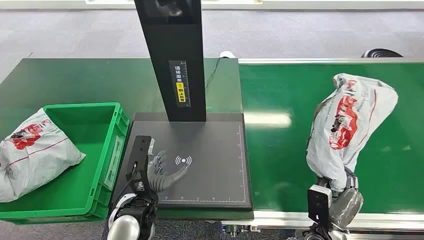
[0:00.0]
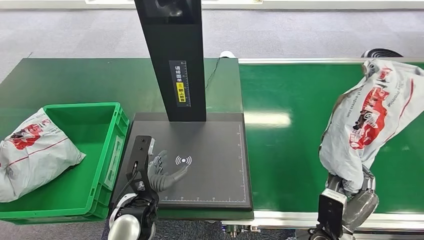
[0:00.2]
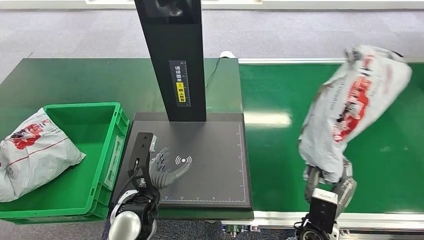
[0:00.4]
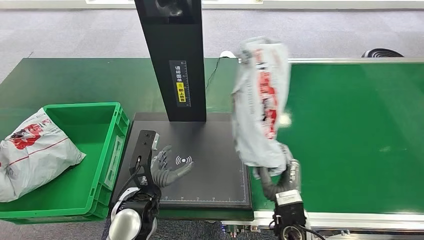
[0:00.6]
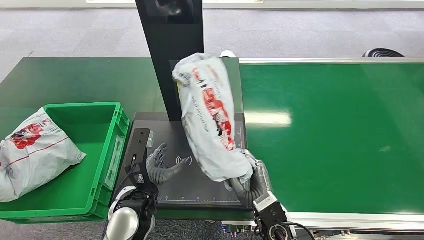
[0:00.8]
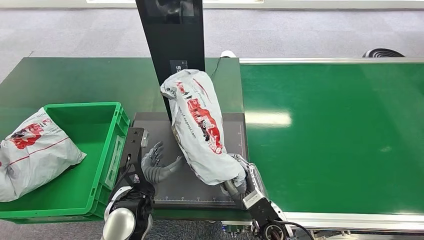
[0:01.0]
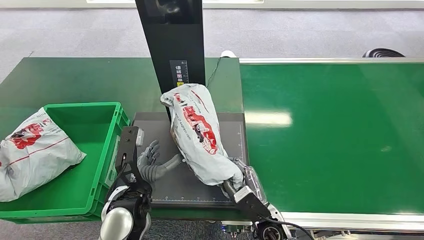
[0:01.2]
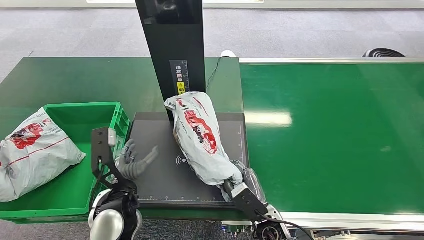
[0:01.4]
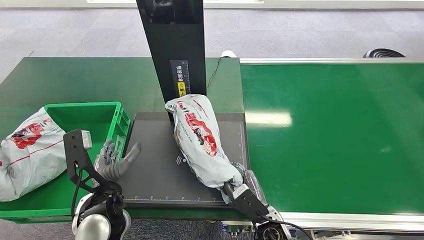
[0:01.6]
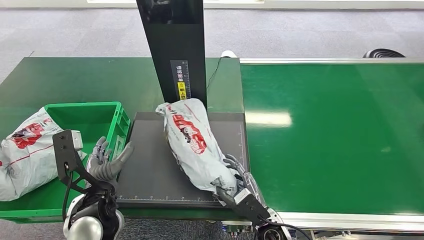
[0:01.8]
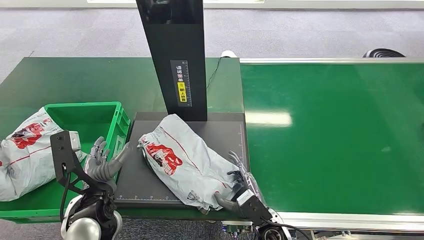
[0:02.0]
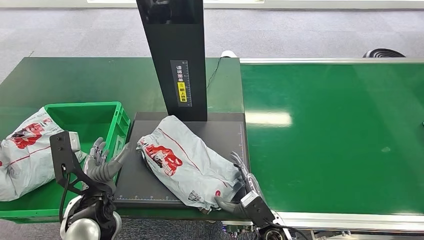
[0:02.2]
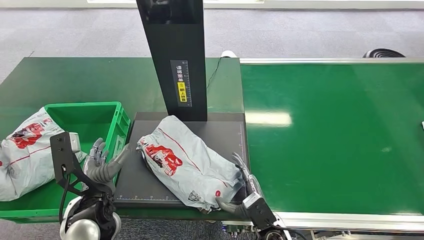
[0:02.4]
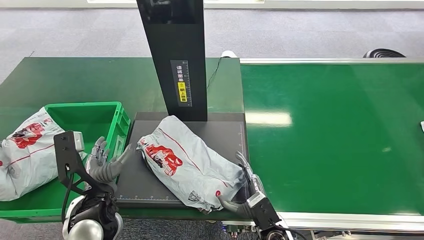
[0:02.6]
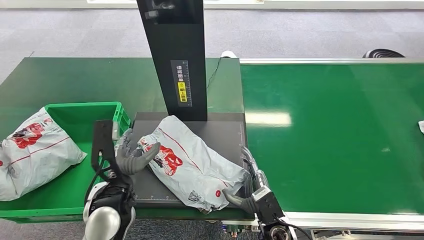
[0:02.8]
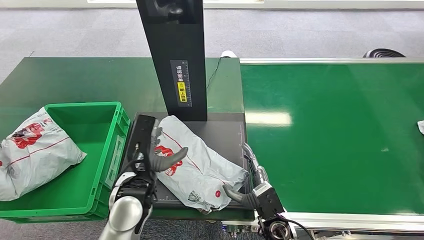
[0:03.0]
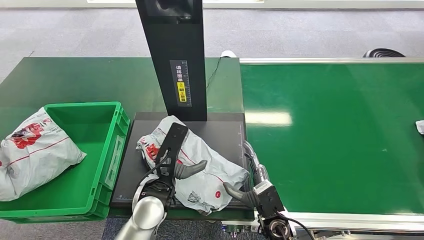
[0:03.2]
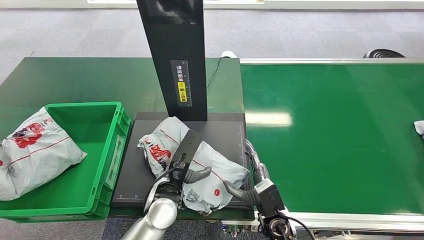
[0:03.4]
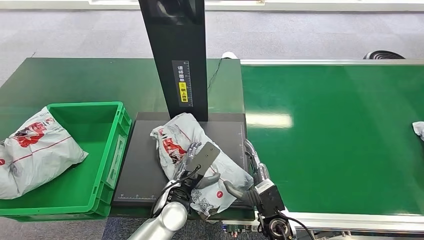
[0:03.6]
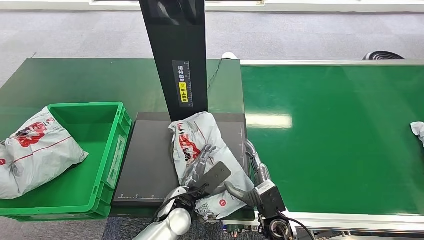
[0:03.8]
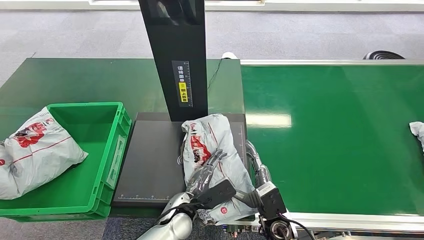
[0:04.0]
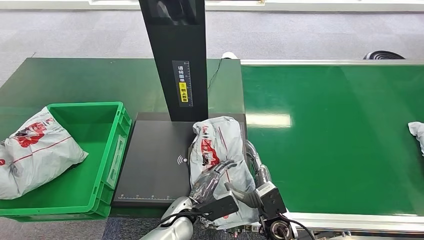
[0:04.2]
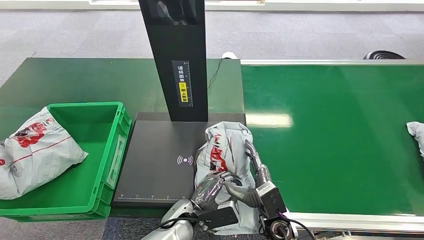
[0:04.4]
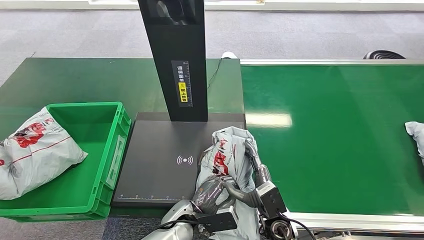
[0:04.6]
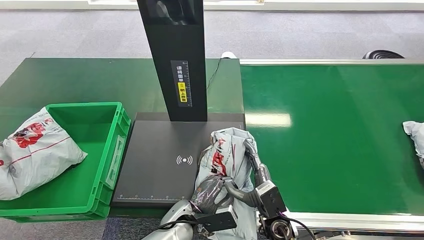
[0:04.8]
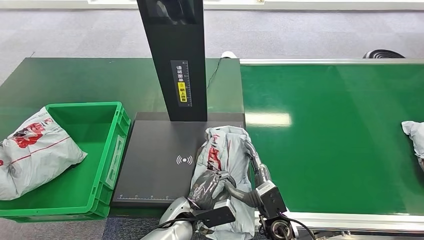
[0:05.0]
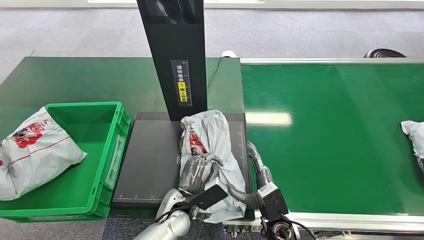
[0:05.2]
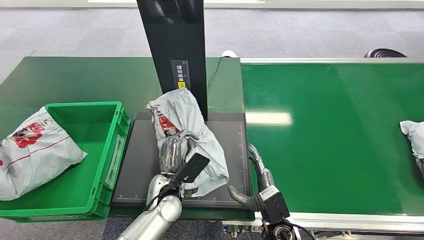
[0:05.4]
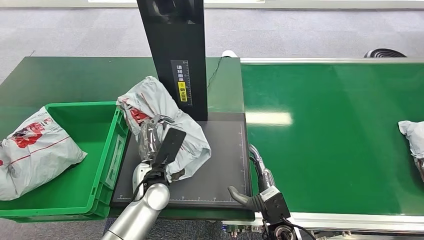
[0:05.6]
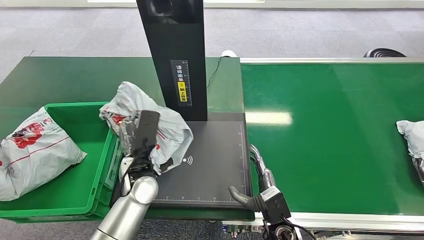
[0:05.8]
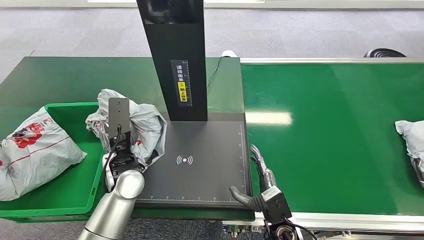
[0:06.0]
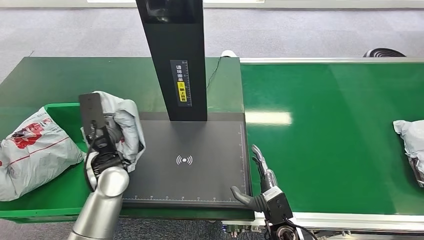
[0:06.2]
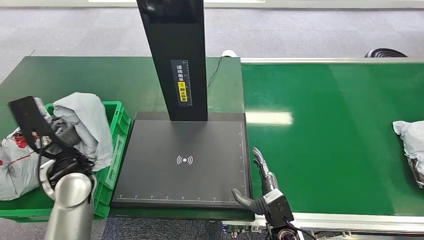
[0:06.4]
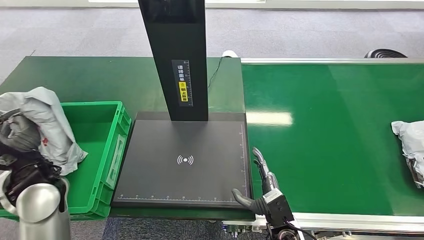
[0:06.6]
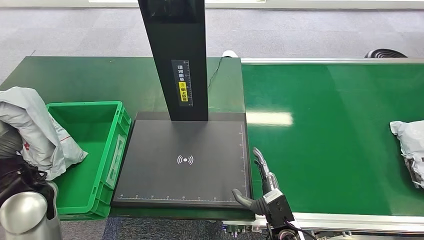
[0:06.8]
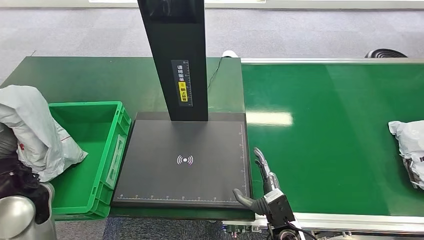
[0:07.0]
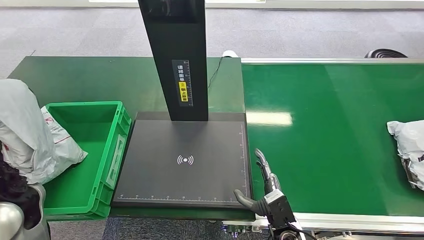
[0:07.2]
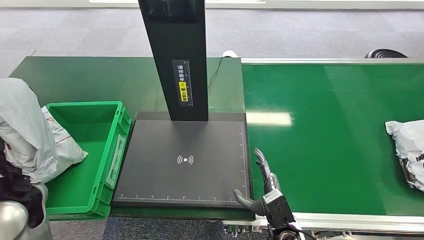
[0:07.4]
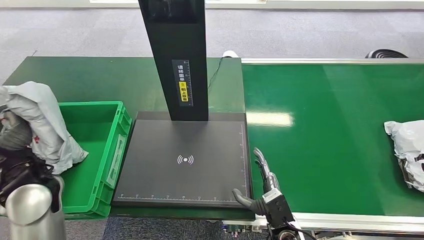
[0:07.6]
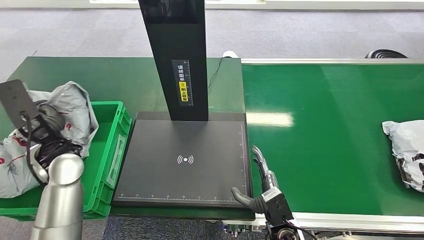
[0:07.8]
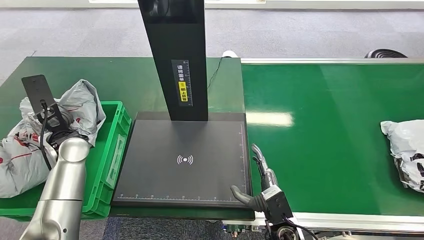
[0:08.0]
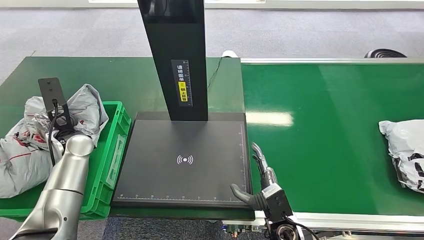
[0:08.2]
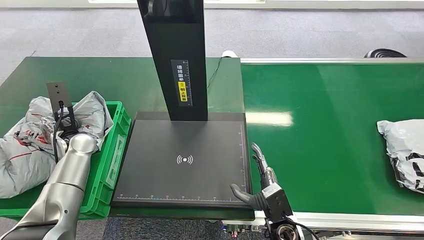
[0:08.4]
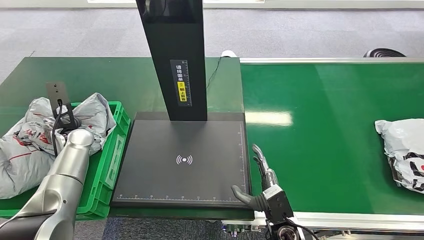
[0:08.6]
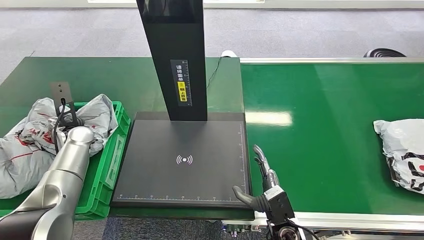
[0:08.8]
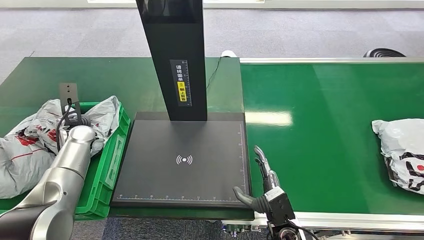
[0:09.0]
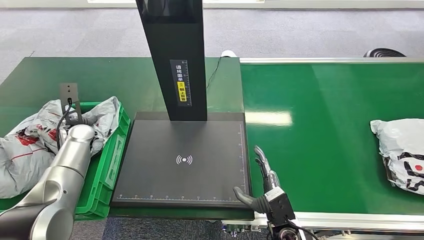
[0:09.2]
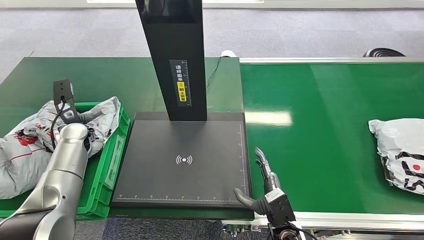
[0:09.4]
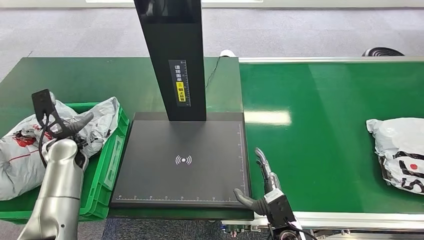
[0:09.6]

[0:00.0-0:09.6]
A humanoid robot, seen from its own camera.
Step, 0:00.0 to 0:00.2: Pick up the package from the conveyor belt.
Step, 0:09.4 to 0:09.6: Place the package into the parcel locker.
0:01.6 to 0:03.2: The left hand is displaced to the right by approximately 10 cm.
0:06.4 to 0:08.0: The left hand is displaced forward and to the left by approximately 10 cm.

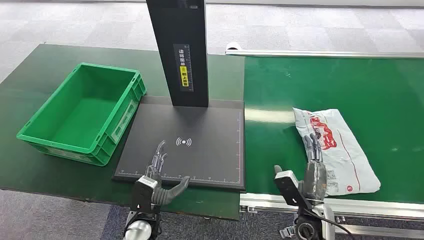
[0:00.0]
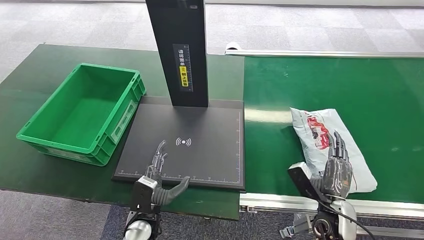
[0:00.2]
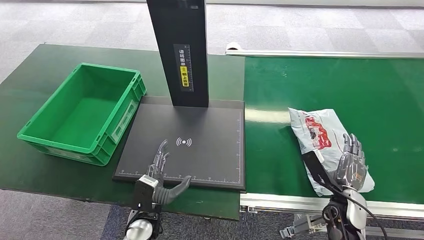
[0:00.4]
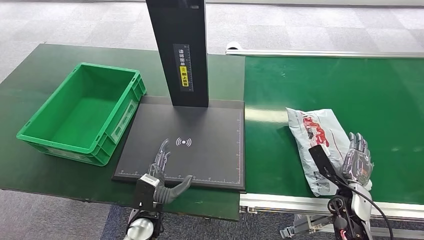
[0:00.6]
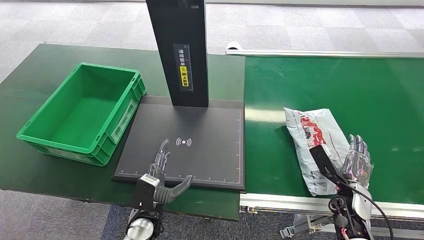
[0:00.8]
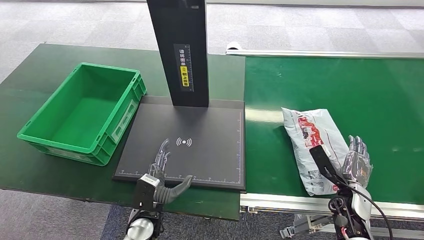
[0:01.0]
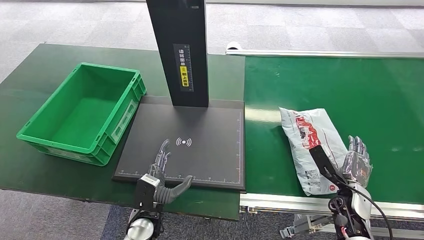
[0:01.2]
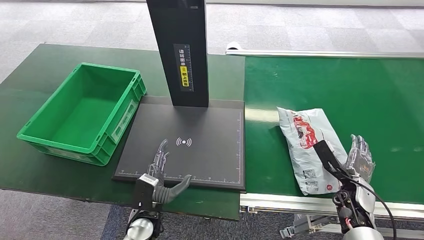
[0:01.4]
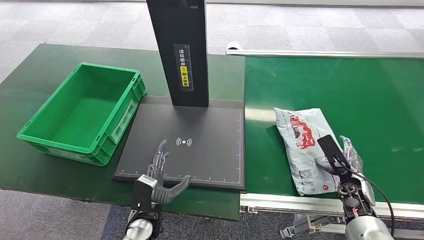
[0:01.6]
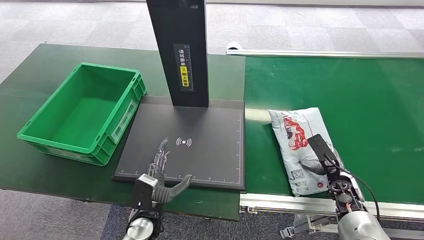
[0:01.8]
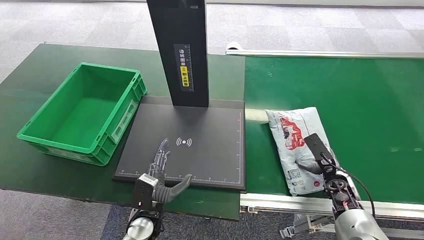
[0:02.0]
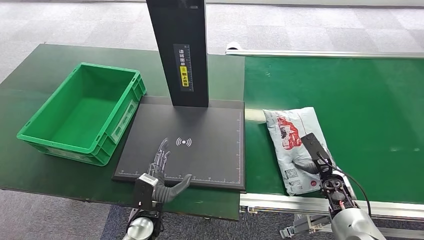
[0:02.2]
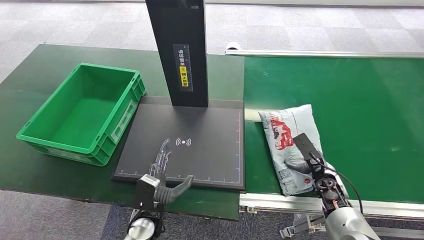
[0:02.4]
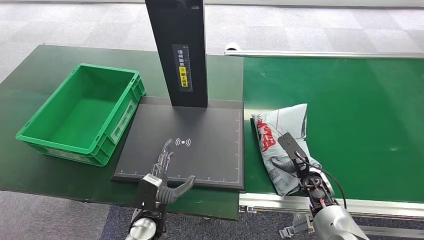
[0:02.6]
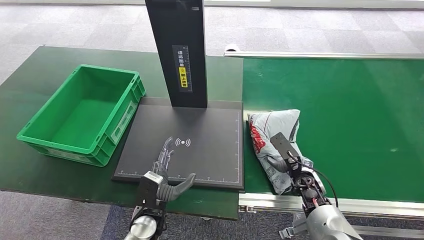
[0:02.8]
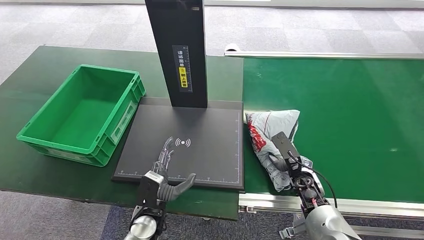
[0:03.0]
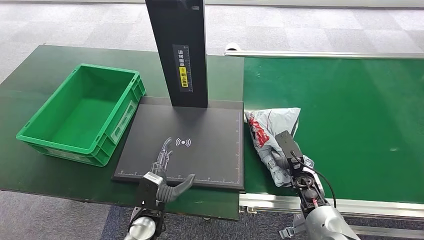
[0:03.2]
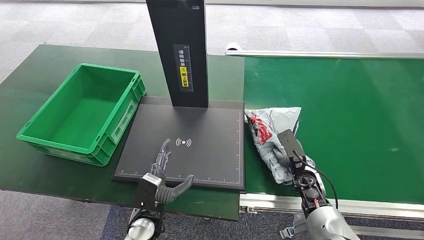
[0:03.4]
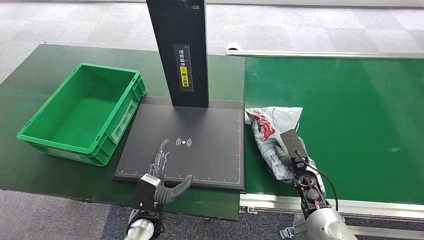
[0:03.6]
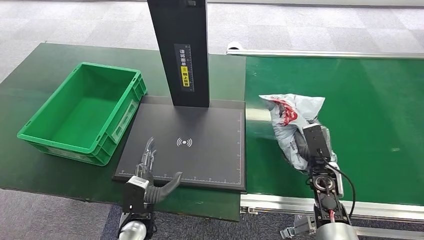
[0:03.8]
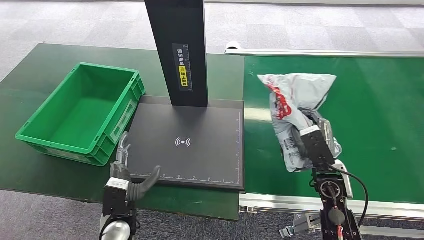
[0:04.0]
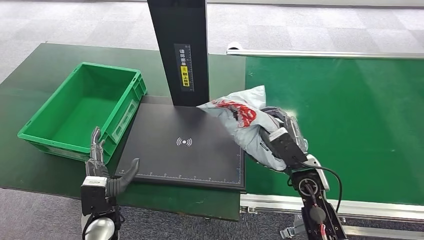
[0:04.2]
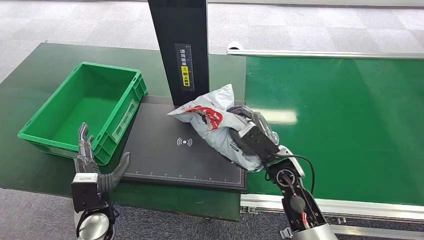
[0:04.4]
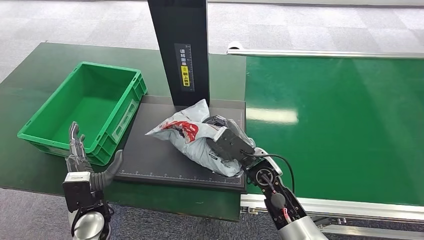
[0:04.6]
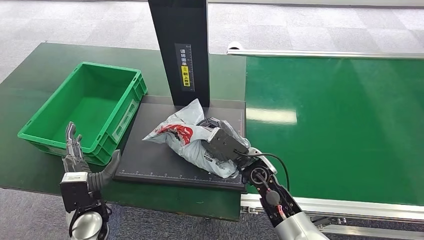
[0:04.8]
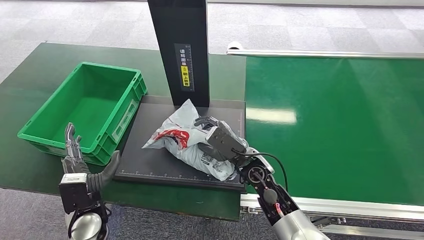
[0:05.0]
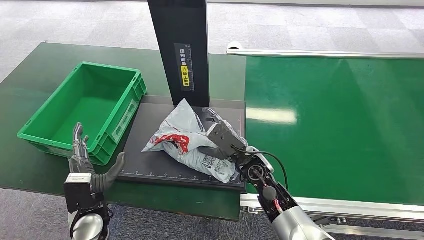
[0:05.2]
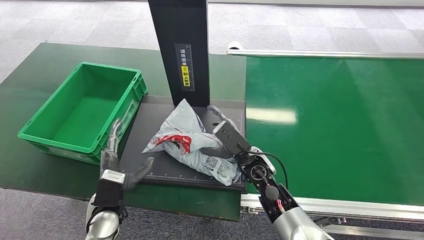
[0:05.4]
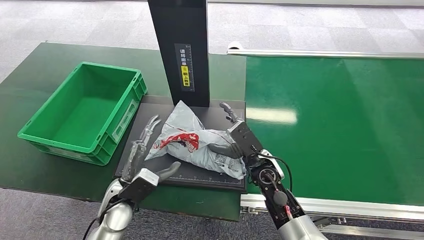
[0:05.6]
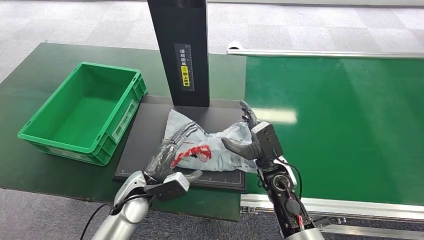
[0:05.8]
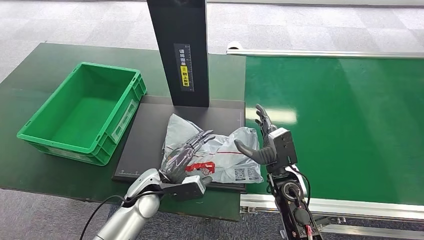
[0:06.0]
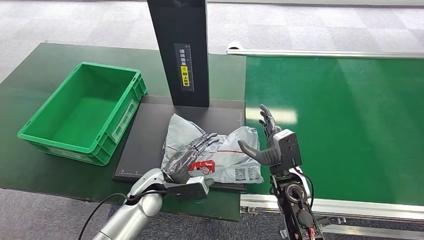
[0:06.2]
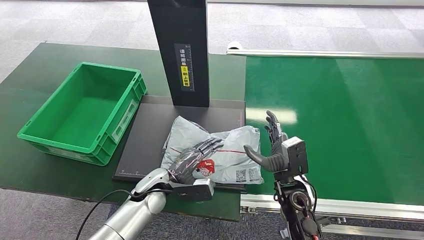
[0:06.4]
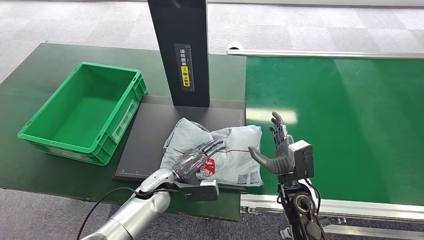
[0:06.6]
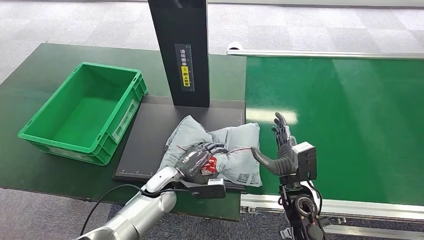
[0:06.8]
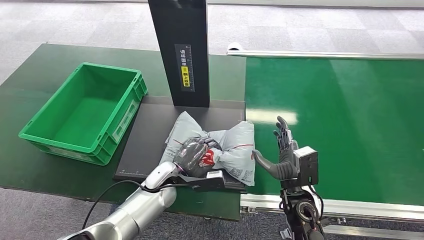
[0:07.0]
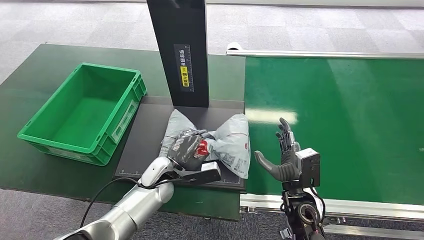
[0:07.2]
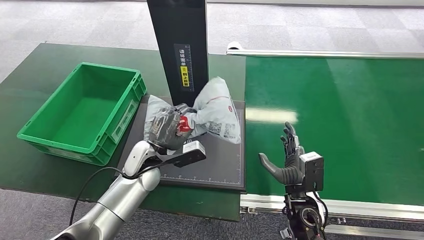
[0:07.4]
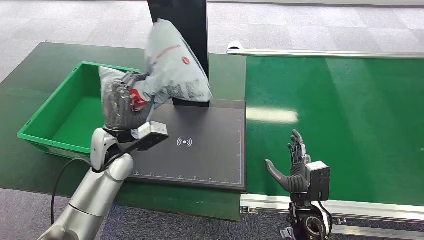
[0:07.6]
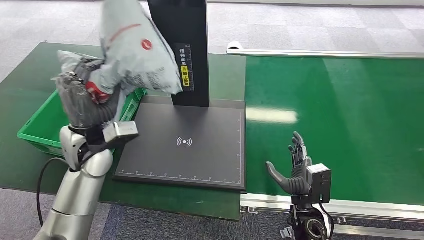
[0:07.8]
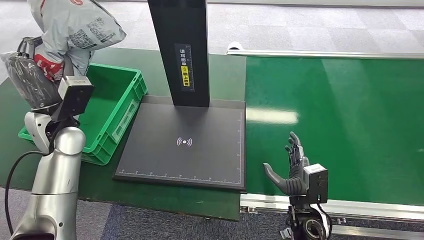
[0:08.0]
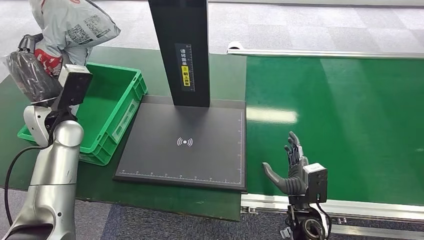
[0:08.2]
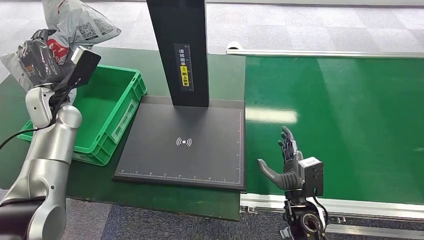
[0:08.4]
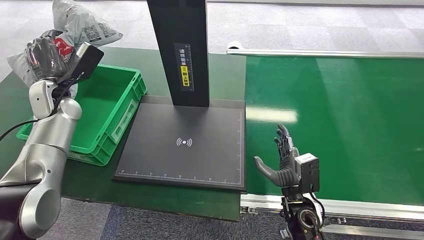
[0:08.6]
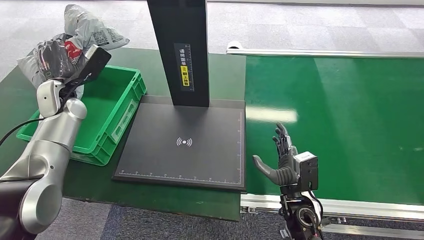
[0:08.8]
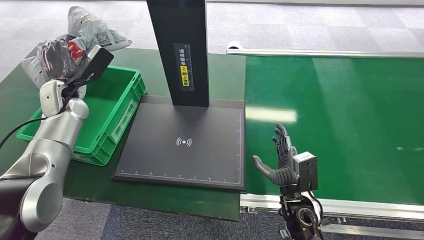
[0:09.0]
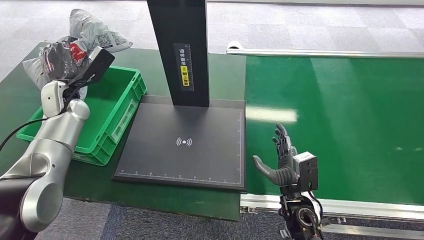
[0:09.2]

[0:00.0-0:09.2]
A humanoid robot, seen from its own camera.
Step, 0:00.0 to 0:04.0: Pick up the package from the conveyor belt.
Step, 0:04.4 to 0:05.8: Place the package onto the inbound machine.
Step, 0:06.0 to 0:07.8: Pick up the package from the inbound machine.
Step, 0:08.2 to 0:09.2: Place the package into the parcel locker.
0:01.6 to 0:03.0: The right hand heads to the left, covering approximately 15 cm.
0:04.6 to 0:06.2: The left hand heads to the right and forward, covering approximately 15 cm. Meanwhile the right hand moves to the right, approximately 5 cm.
